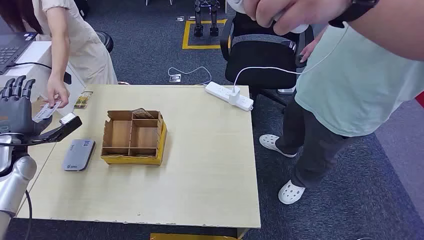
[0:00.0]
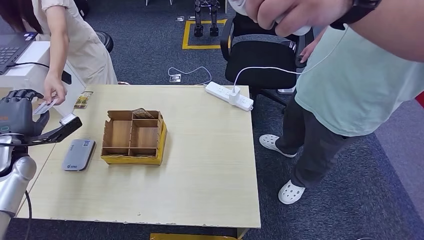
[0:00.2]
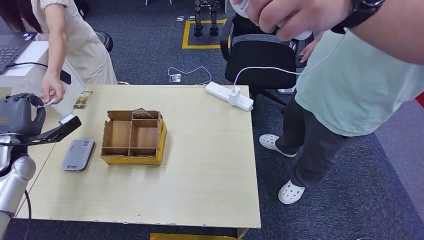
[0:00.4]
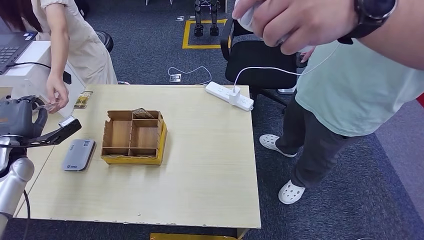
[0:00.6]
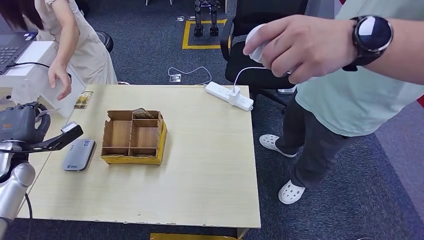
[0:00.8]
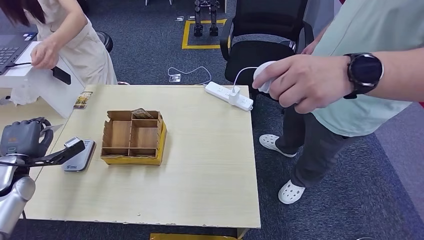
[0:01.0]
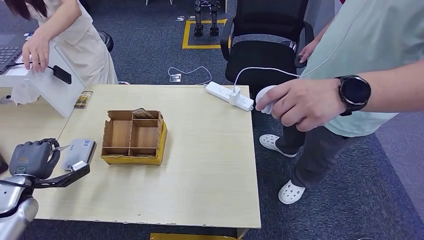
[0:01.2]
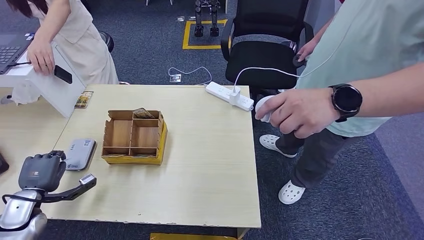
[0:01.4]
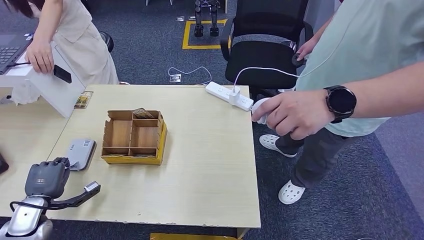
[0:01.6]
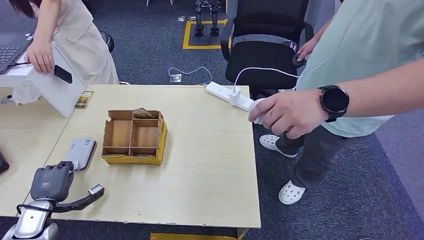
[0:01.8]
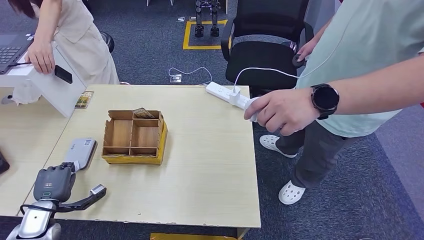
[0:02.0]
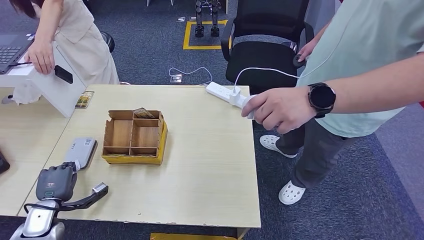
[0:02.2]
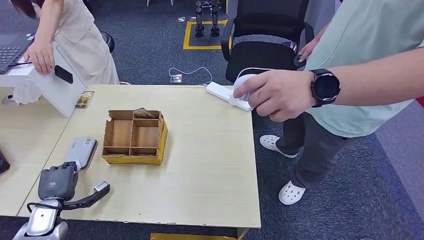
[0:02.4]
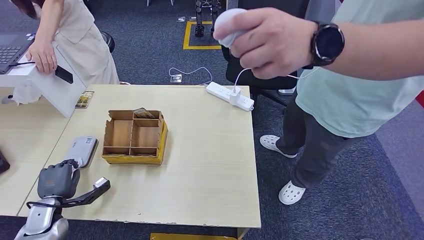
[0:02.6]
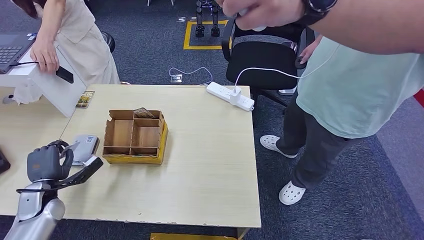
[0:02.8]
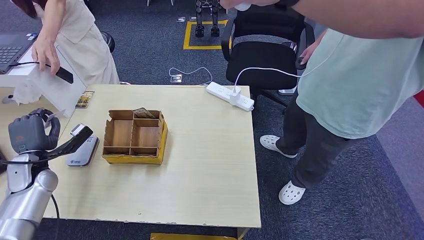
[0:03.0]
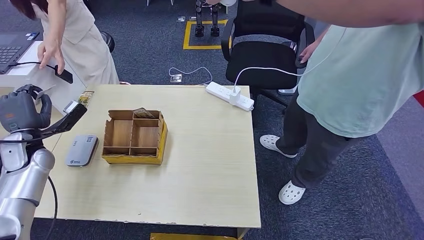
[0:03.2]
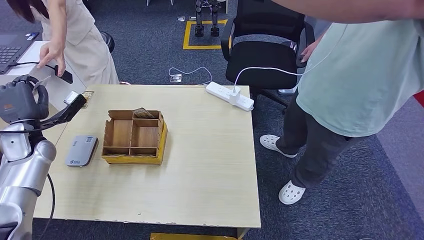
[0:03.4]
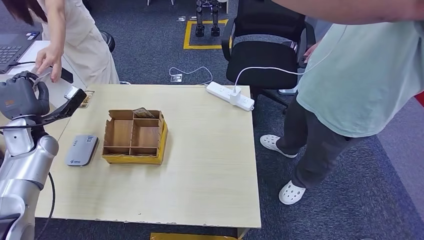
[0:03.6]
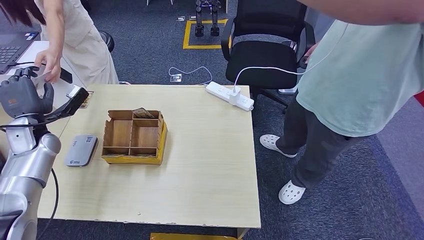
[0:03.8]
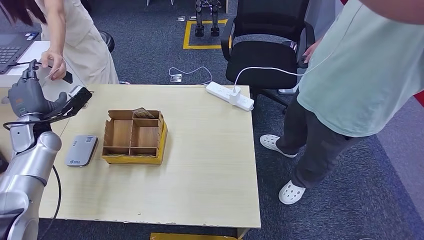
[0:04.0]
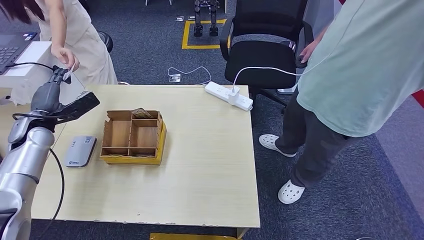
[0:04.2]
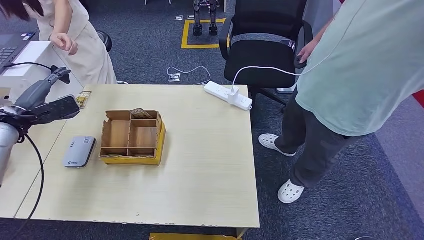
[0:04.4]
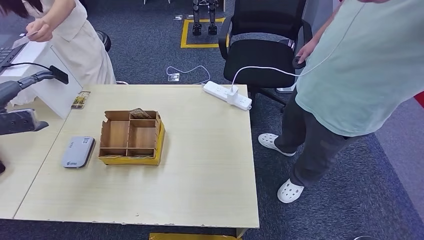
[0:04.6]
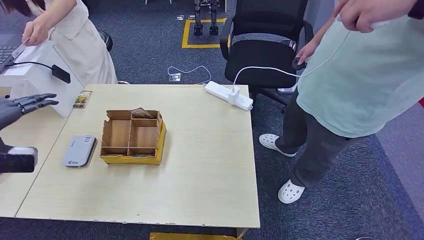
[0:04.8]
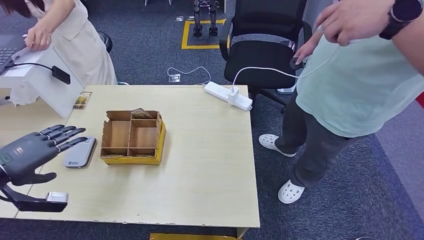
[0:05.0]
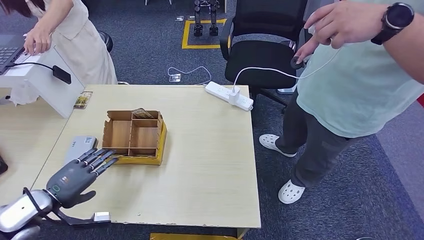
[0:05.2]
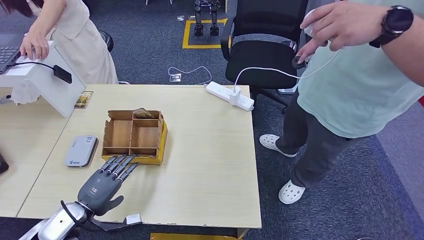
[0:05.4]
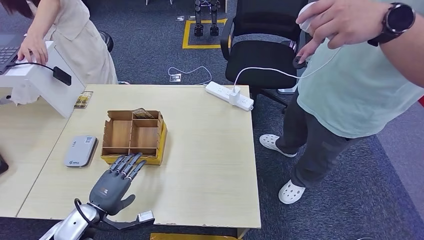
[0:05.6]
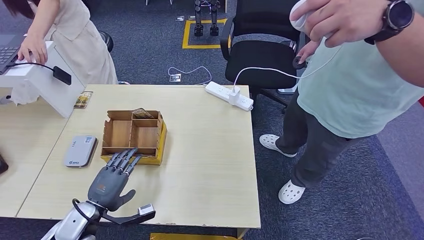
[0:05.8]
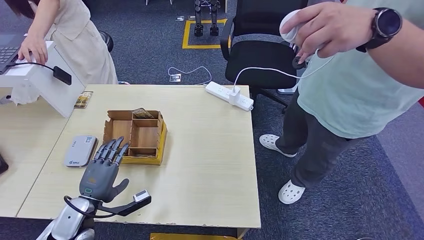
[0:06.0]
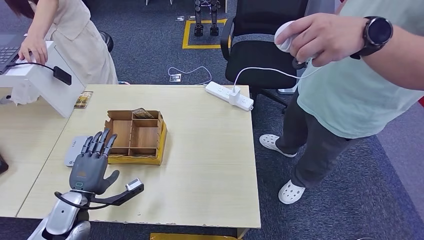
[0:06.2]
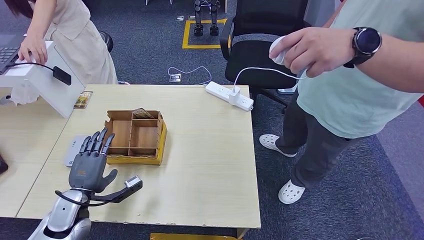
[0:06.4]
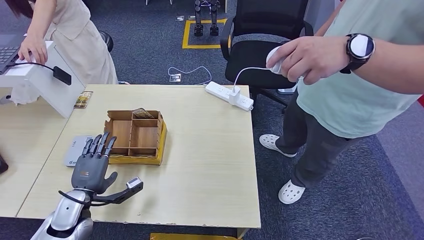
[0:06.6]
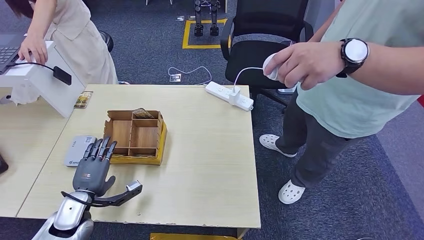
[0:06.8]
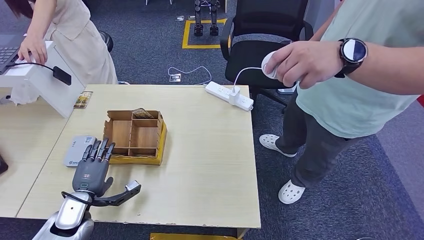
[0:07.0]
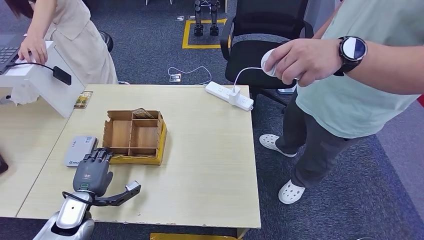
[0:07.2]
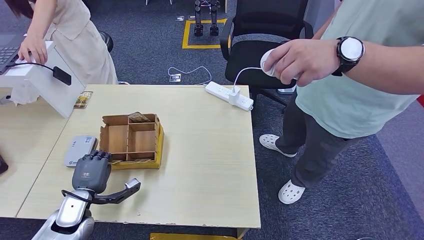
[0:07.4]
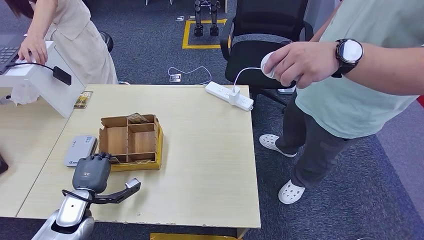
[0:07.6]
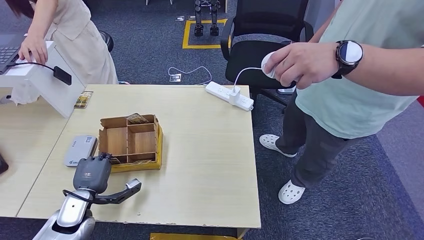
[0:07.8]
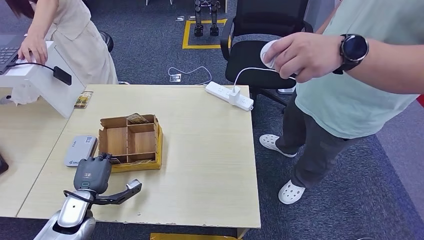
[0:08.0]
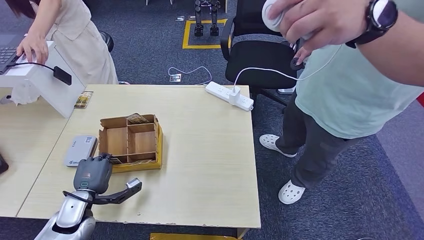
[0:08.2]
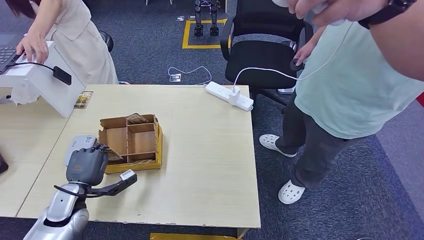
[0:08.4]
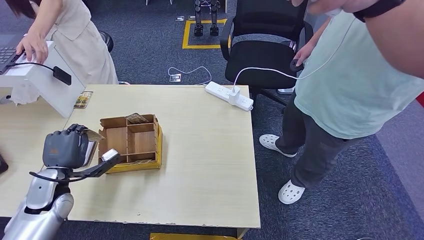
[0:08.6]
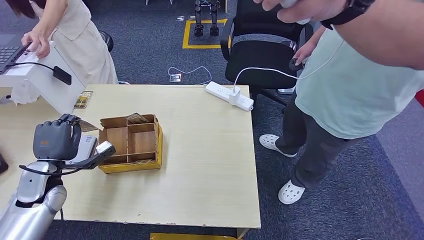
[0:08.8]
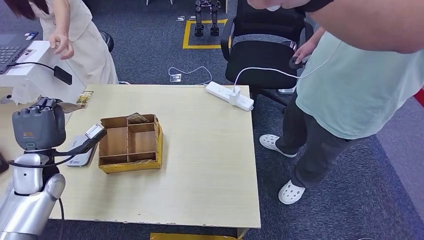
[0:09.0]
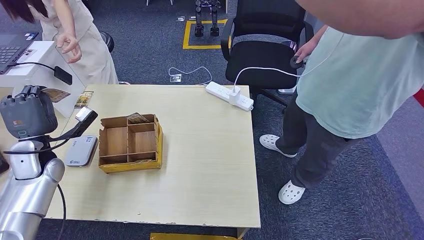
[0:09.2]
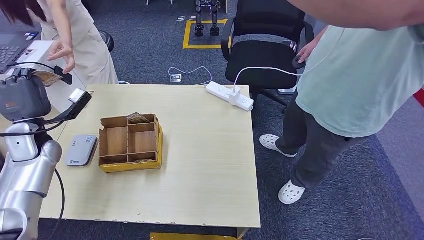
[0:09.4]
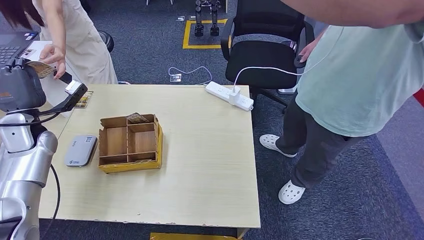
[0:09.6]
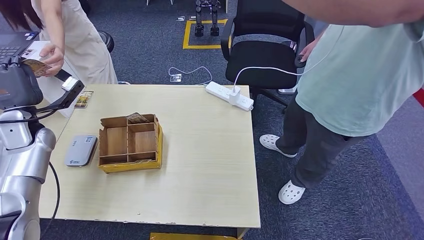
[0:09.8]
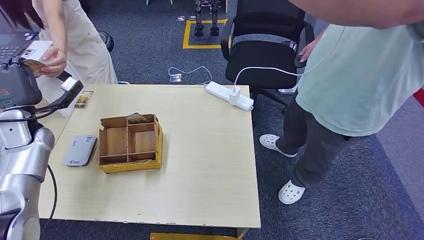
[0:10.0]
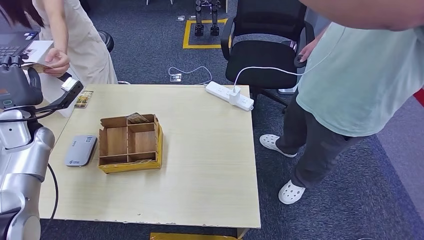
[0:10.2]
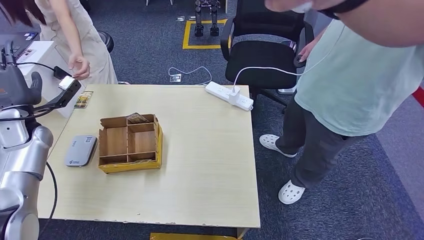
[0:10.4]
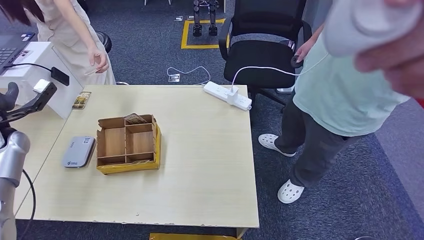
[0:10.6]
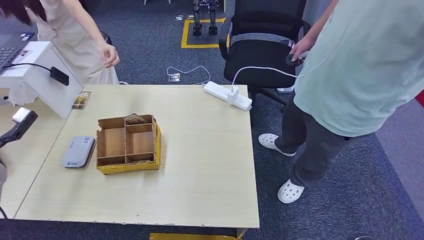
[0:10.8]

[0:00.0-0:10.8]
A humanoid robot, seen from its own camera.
Step, 0:00.0 to 0:01.0: Take the ID card from the person's hand.
Step, 0:01.2 to 0:02.2: Place the ID card on the card reader.
Step, 0:02.6 to 0:05.0: Hand the ID card to the person.
Step, 0:05.2 to 0:08.2: Pick up the room key from the key card box.
Step, 0:08.4 to 0:10.8: Hand the room key to the person.
0:01.6 to 0:03.0: The left hand is displaced forward and upward by roughly 15 cm.
0:04.6 to 0:06.2: The left hand is displaced downward, to the right and backward by roughly 30 cm.
0:06.2 to 0:07.8: The hands move only a little.

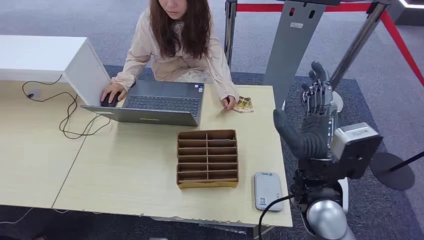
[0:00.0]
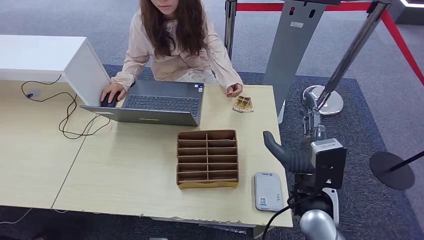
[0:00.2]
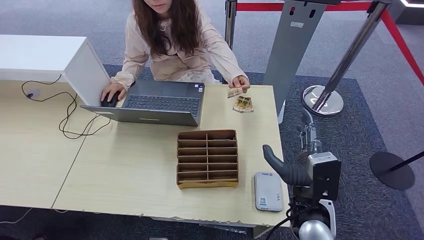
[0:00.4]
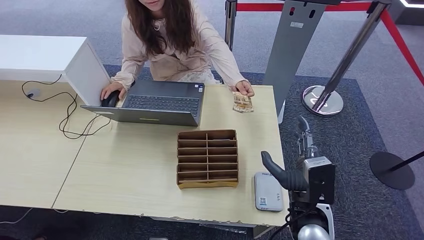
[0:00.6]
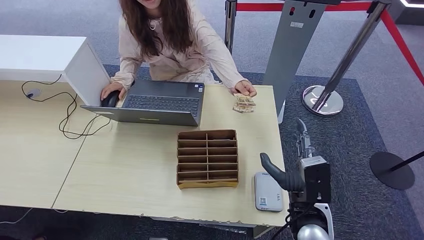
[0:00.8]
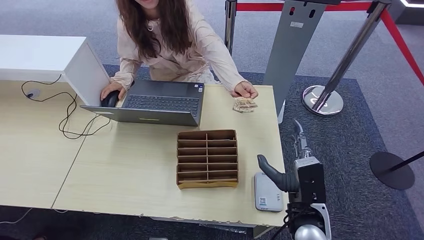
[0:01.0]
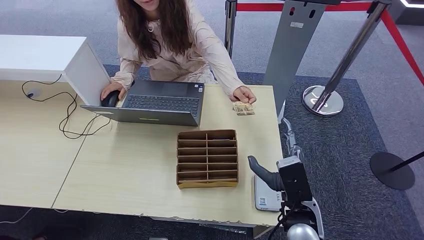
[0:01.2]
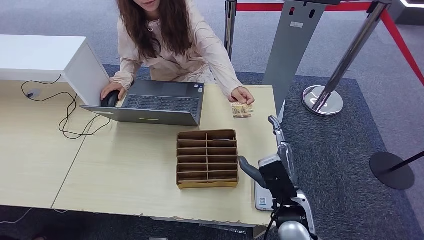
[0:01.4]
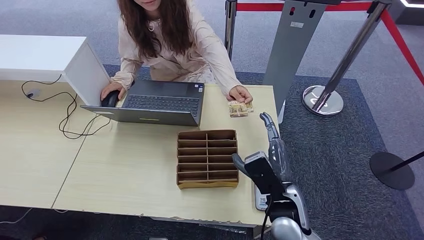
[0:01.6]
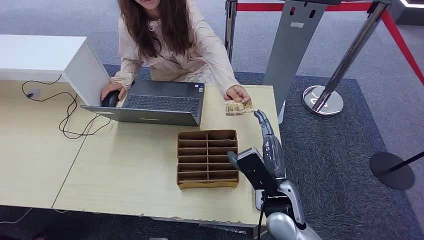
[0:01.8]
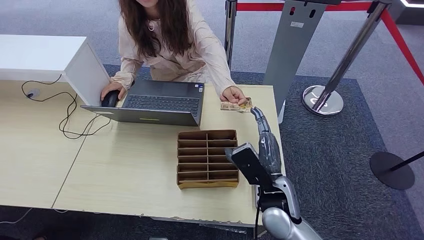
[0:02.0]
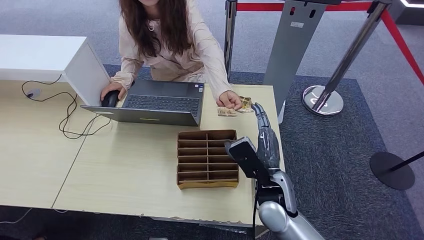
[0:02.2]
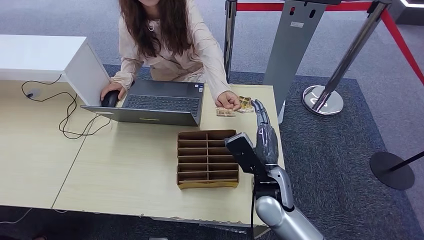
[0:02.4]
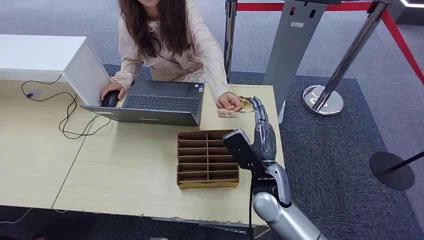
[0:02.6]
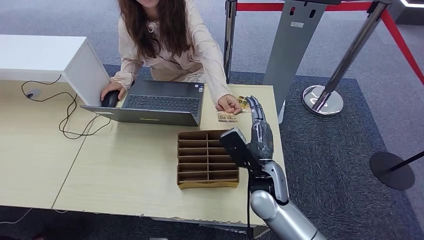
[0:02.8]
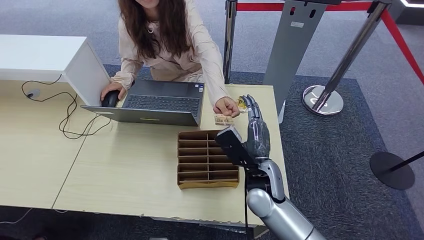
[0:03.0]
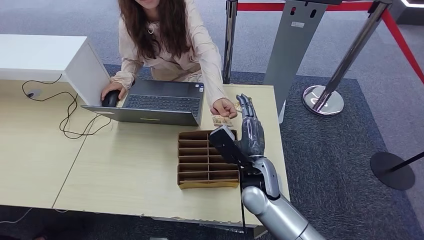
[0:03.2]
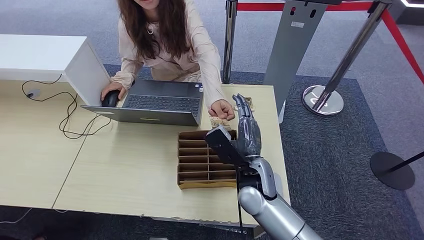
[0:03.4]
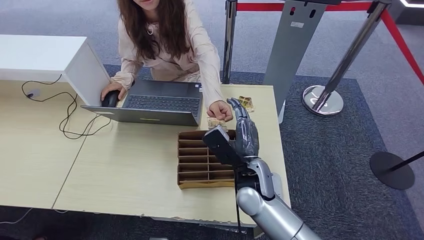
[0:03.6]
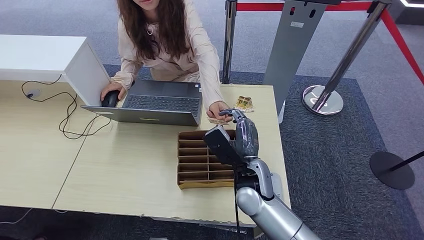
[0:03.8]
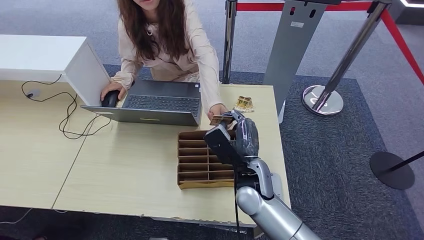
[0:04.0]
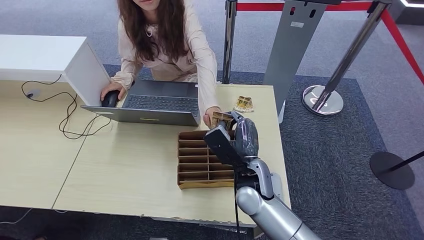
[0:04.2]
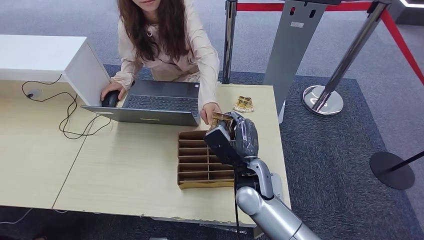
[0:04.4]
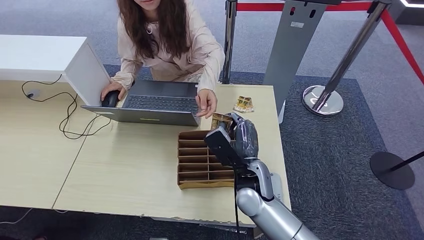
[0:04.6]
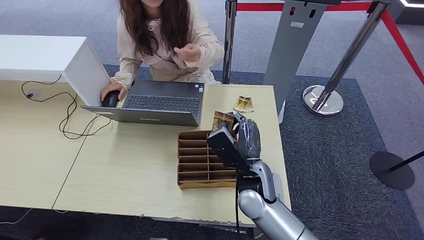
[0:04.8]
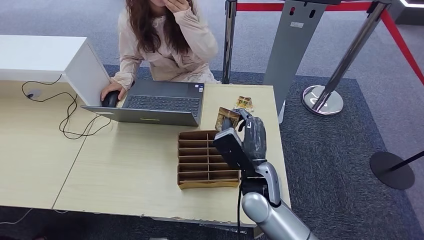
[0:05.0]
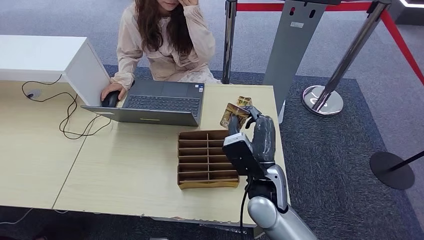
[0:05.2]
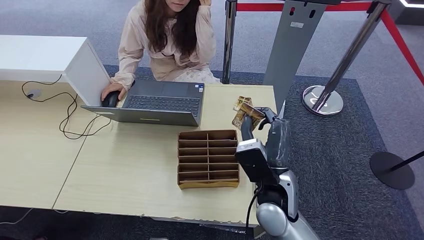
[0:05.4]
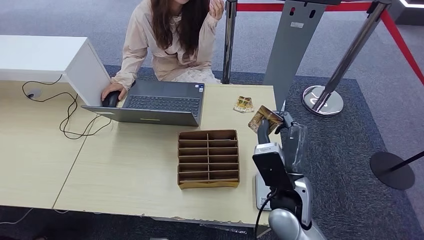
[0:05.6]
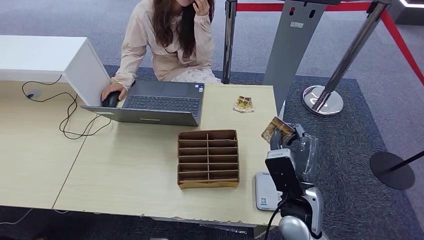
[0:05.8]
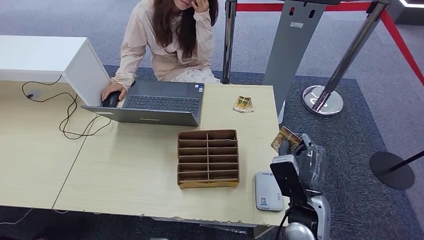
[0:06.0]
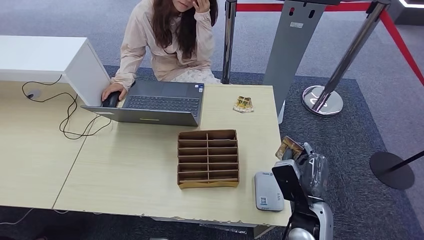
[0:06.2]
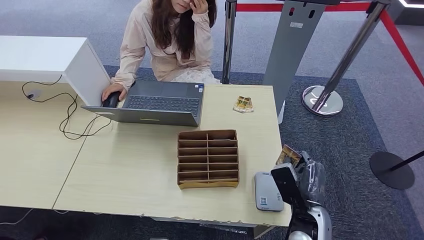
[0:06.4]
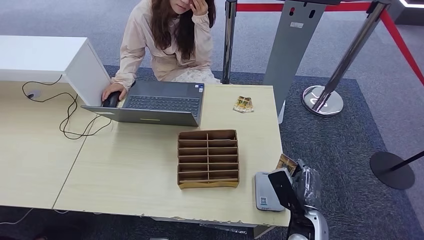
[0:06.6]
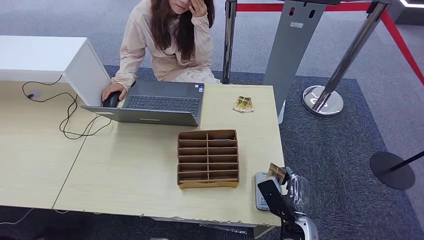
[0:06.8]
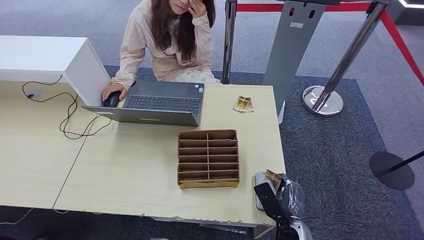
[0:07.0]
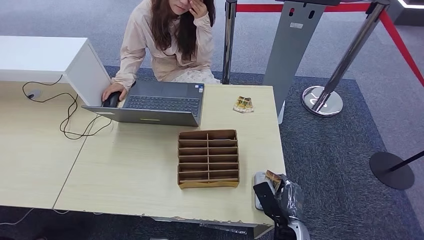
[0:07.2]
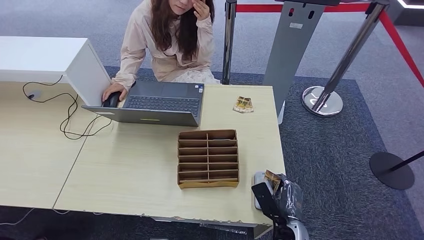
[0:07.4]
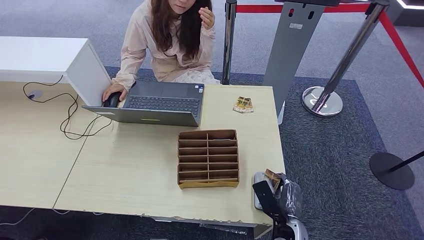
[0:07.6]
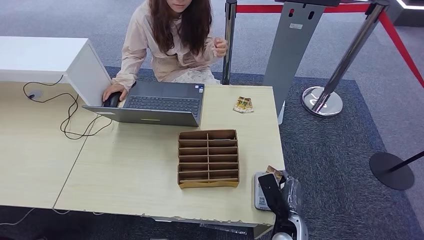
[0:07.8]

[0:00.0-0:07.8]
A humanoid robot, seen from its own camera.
Step, 0:00.0 to 0:04.6: Take the ID card from the person's hand.
Step, 0:04.8 to 0:07.6: Place the ID card on the card reader.
0:01.6 to 0:03.2: The right hand moves forward and to the left, roughly 10 cm.
0:03.2 to 0:04.6: The hands move only a little.
0:04.6 to 0:06.2: The right hand shifts roughly 15 cm to the right and backward.
0:06.2 to 0:07.8: The right hand is displaced downward by approximately 10 cm.
